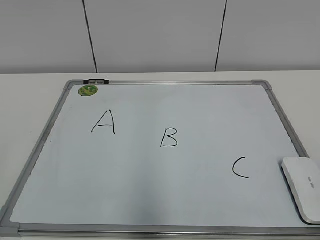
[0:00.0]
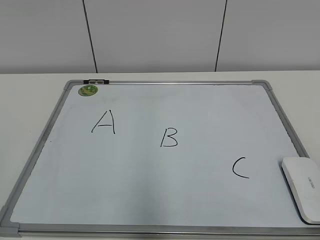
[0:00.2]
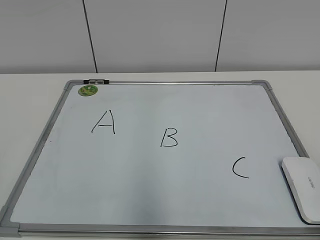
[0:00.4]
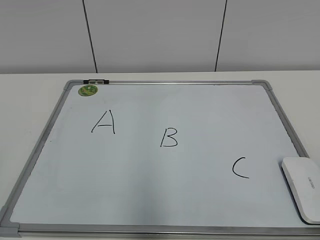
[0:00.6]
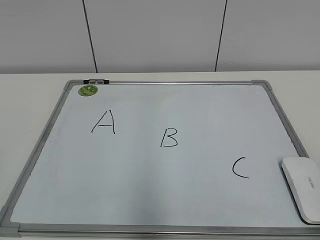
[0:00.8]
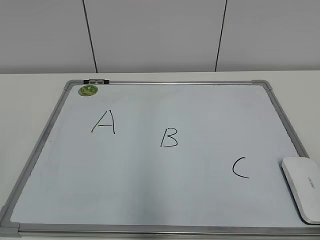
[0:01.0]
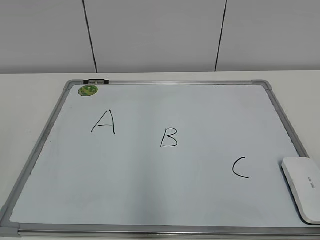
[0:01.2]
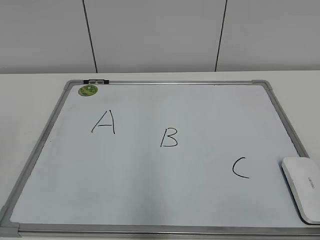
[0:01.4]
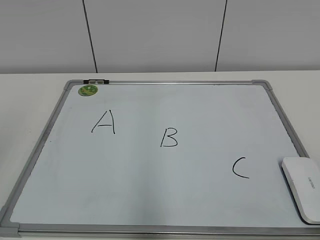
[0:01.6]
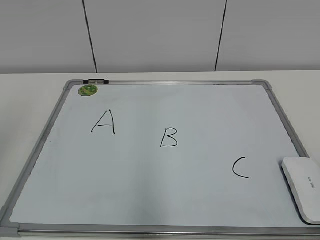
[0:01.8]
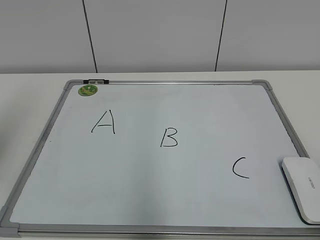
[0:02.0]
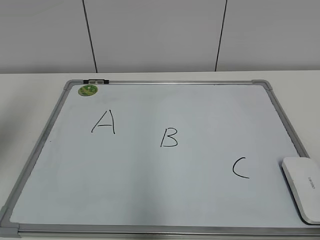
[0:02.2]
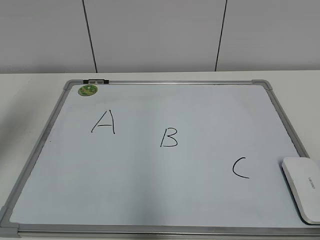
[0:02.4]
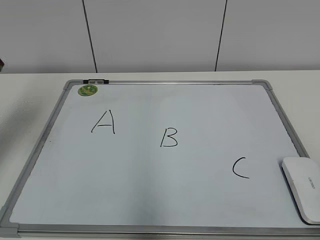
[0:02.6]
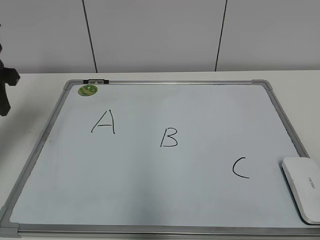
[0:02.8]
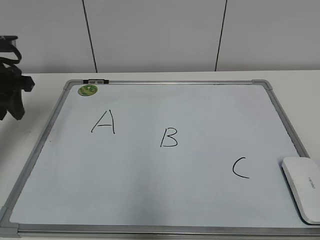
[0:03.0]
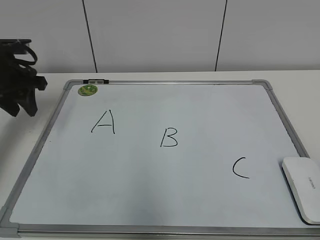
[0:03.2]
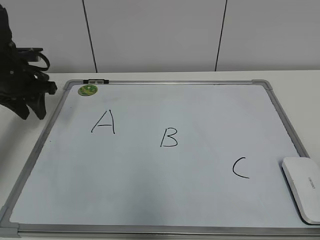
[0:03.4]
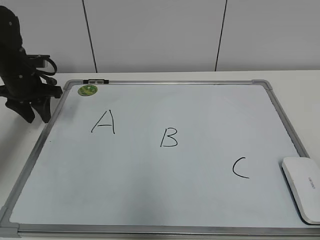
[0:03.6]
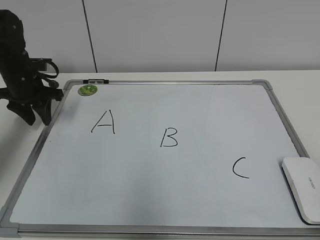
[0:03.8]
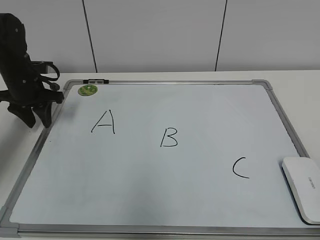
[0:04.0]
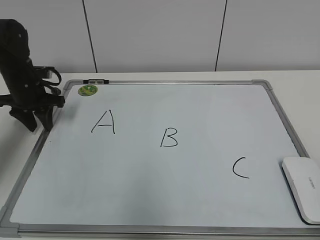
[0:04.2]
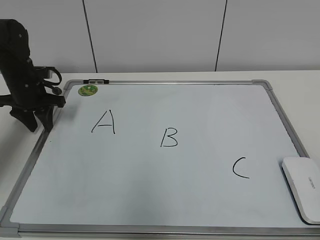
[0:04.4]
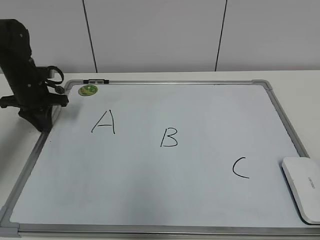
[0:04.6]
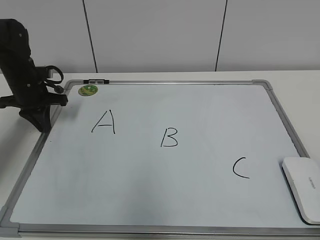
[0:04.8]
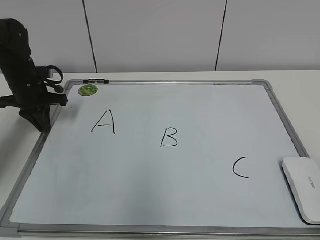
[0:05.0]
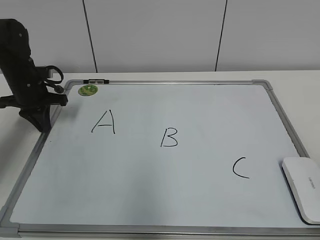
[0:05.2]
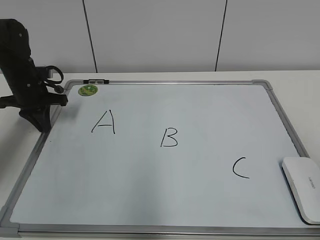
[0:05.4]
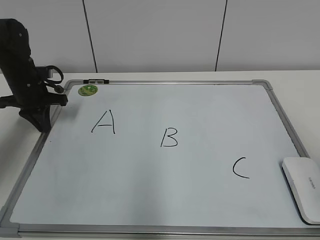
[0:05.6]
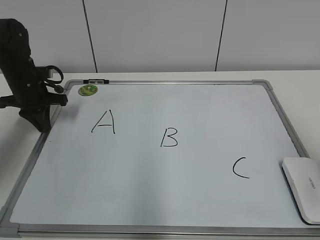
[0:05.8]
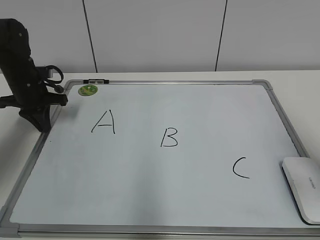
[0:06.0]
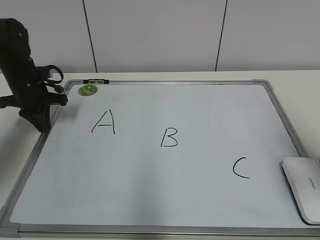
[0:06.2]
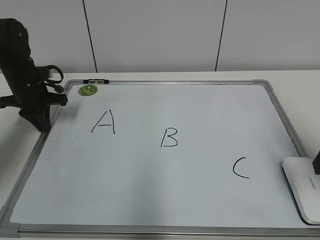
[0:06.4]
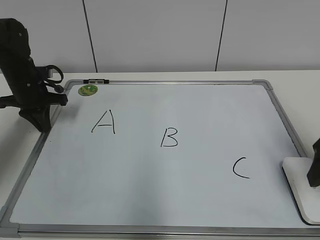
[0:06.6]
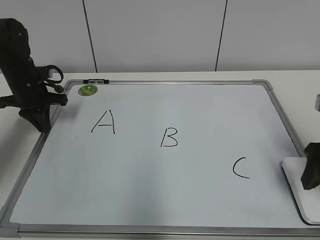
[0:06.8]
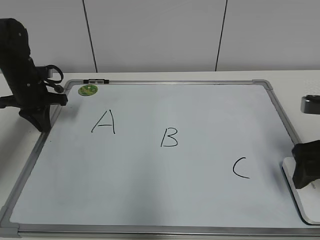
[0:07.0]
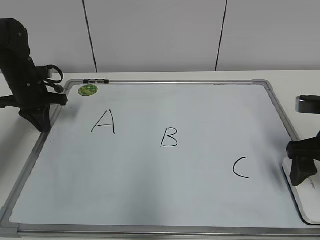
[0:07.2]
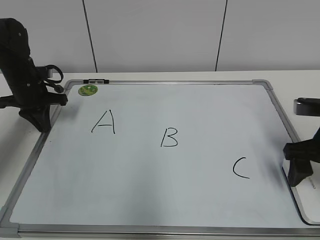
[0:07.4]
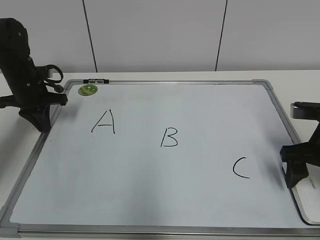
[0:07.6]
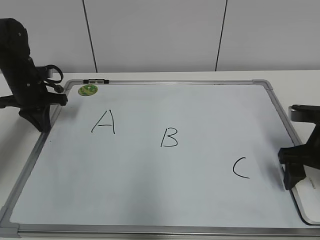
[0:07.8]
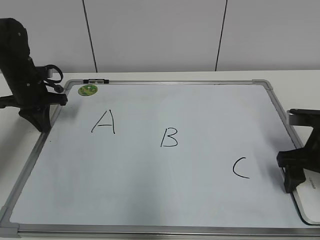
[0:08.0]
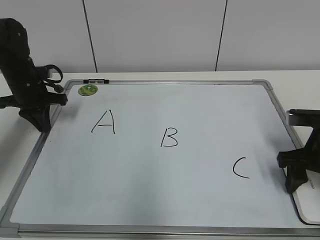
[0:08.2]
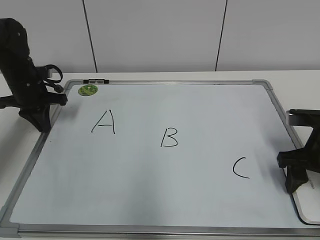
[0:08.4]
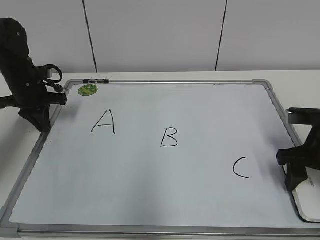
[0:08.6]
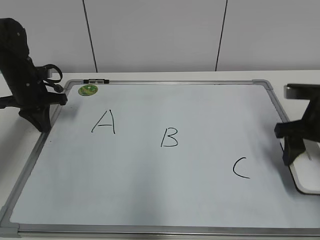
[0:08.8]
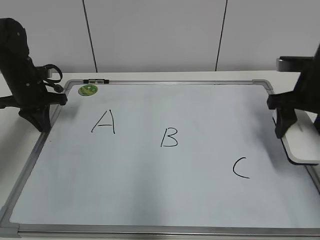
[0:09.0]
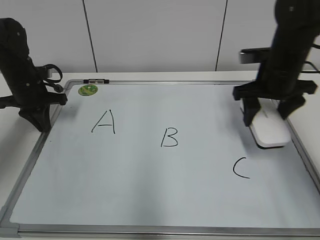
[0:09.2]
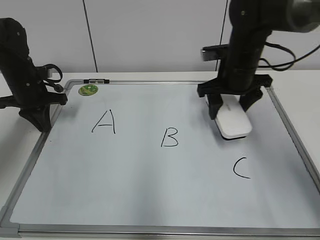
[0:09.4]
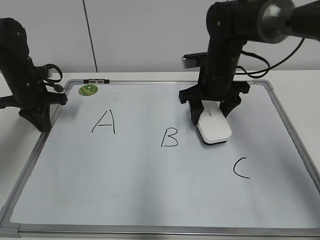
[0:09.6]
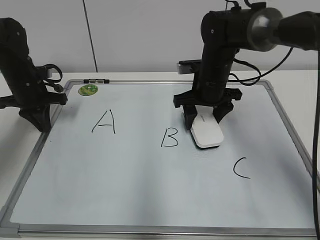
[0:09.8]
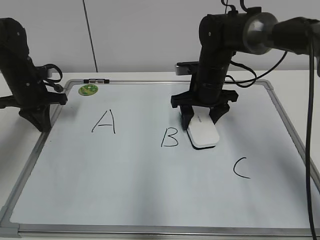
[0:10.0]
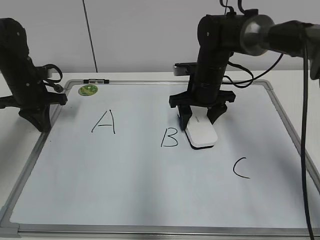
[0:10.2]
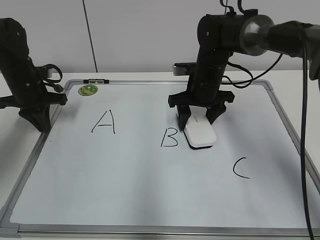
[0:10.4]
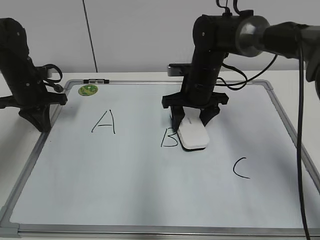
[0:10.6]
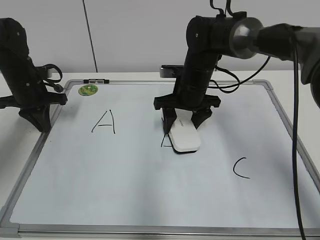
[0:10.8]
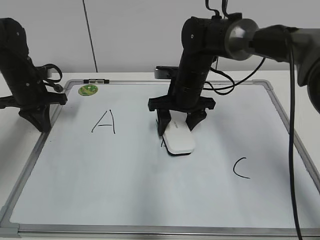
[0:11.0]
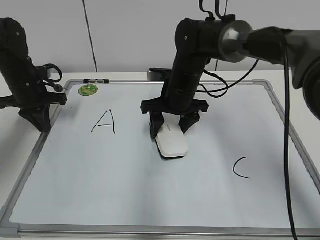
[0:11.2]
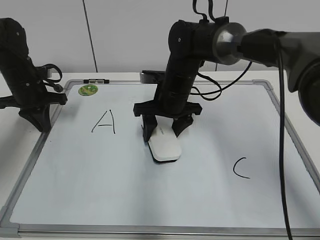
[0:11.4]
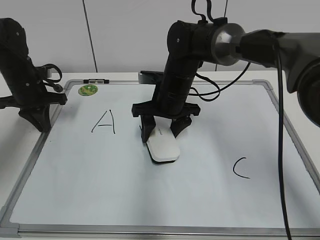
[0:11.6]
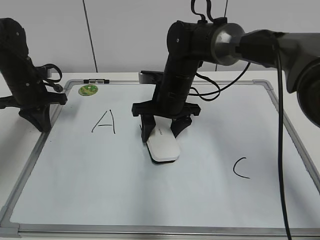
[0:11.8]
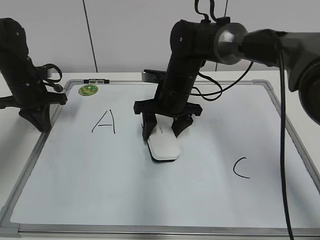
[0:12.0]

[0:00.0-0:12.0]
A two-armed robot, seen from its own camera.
Task of the whole recording: pick up the eraser on the blackboard and erase the letter "B".
Step, 0:00.0 to 0:04.6: Hold the drawing board steady with your left hand.
Step, 0:04.8 to 0:08.4: Grab the eraser with your right hand.
0:01.6 to 0:03.0: The left gripper moves forward, approximately 25 cm.
0:03.0 to 0:04.4: The left gripper shifts about 15 cm downward and forward.
0:04.4 to 0:06.0: The right gripper goes roughly 20 cm forward; the left gripper closes its fingers.
0:06.0 to 0:07.6: The right gripper is displaced forward and downward by roughly 15 cm, and opens.
0:07.6 to 0:09.0: The right gripper moves forward and upward, about 10 cm, and closes.
0:09.0 to 0:10.4: The right gripper moves to the left, forward and downward, roughly 20 cm.
0:10.4 to 0:12.0: The right gripper heads to the left, covering some 5 cm.

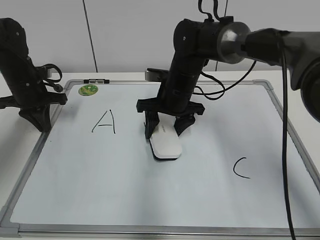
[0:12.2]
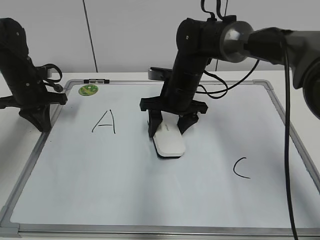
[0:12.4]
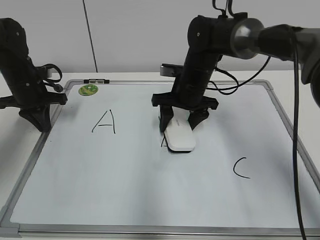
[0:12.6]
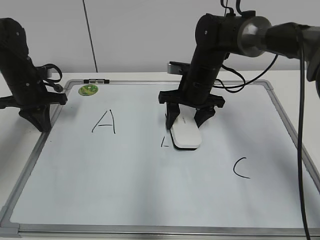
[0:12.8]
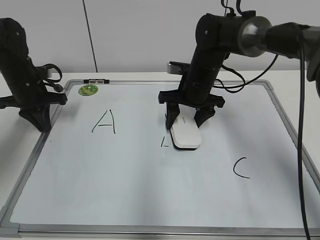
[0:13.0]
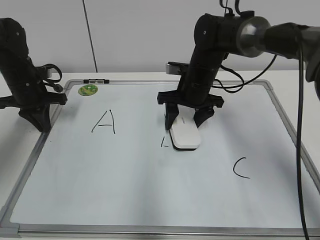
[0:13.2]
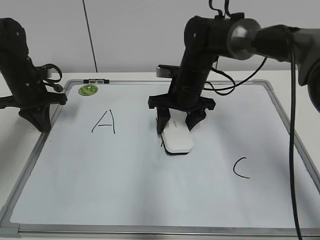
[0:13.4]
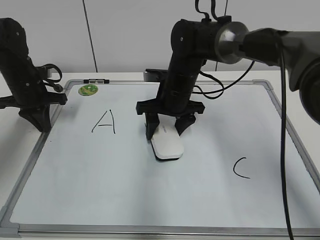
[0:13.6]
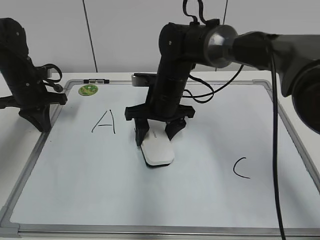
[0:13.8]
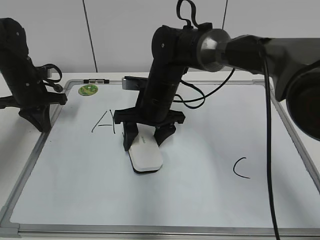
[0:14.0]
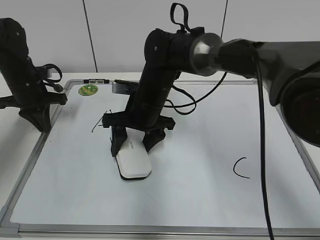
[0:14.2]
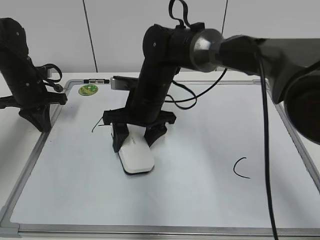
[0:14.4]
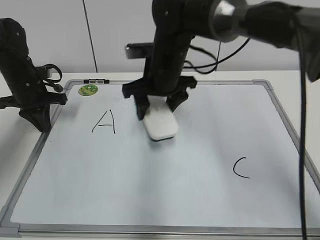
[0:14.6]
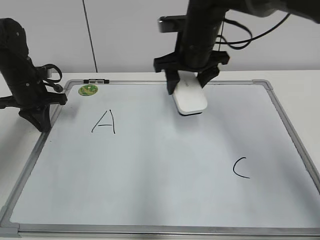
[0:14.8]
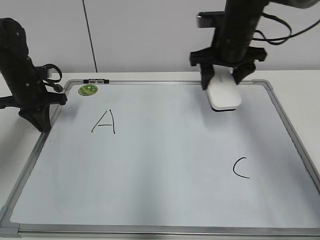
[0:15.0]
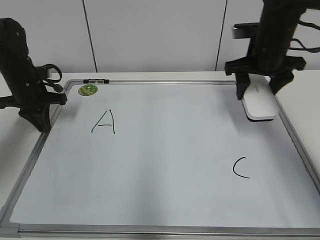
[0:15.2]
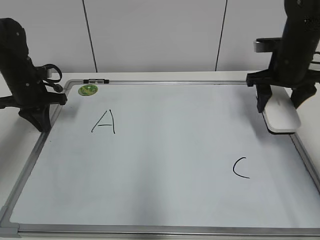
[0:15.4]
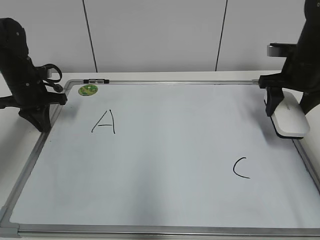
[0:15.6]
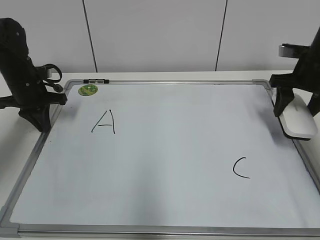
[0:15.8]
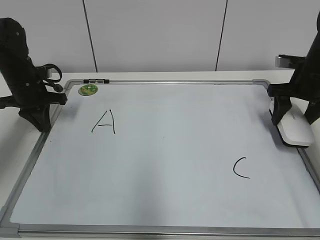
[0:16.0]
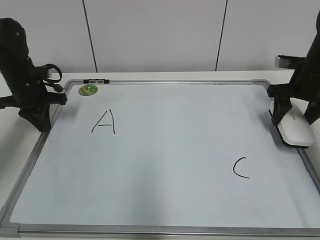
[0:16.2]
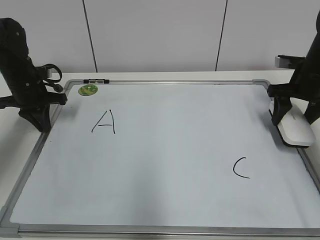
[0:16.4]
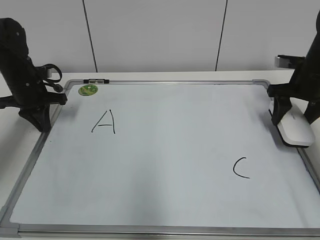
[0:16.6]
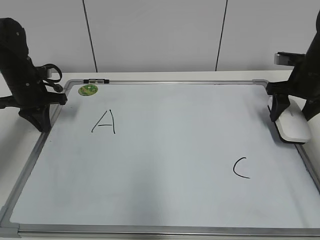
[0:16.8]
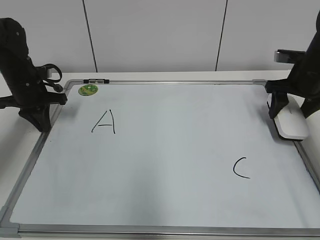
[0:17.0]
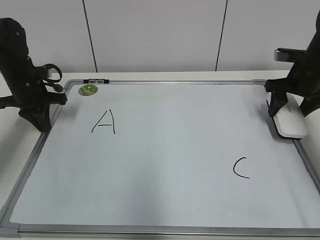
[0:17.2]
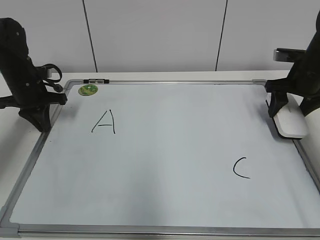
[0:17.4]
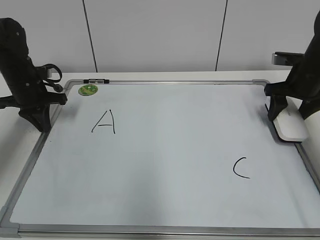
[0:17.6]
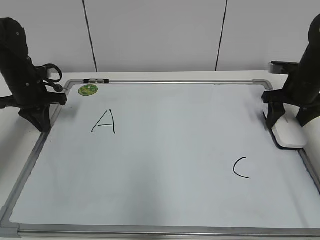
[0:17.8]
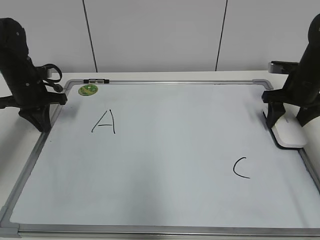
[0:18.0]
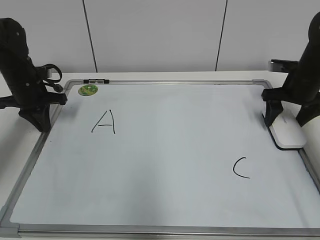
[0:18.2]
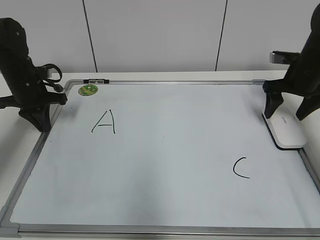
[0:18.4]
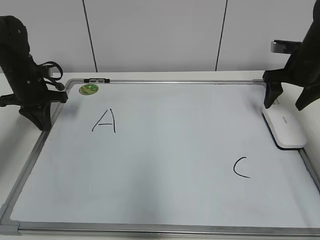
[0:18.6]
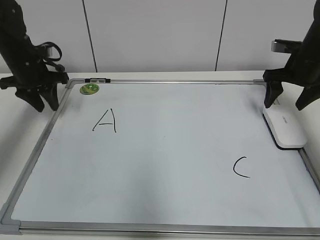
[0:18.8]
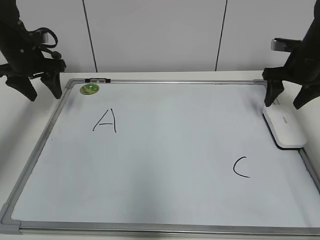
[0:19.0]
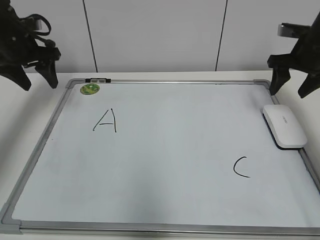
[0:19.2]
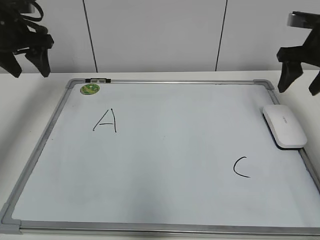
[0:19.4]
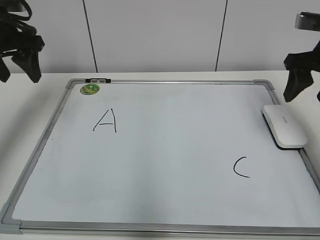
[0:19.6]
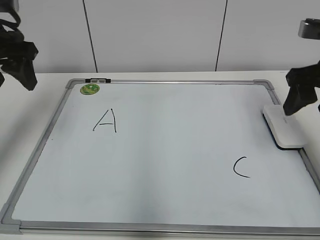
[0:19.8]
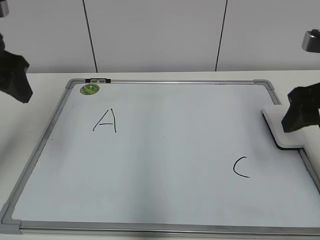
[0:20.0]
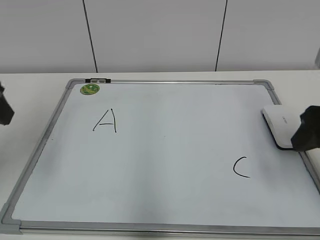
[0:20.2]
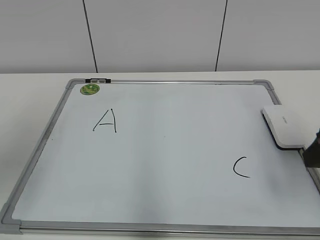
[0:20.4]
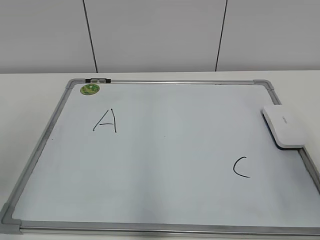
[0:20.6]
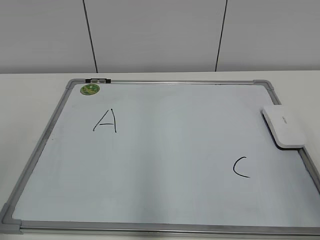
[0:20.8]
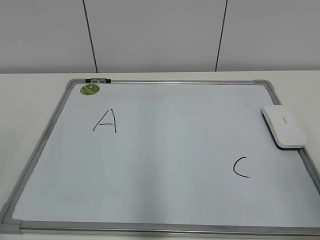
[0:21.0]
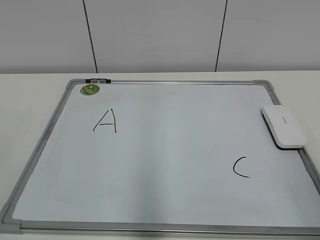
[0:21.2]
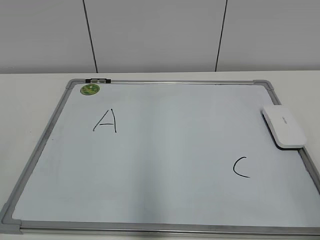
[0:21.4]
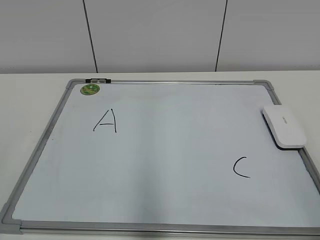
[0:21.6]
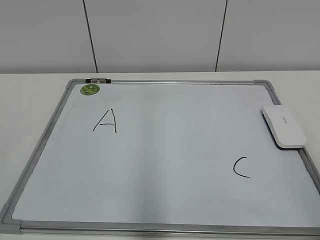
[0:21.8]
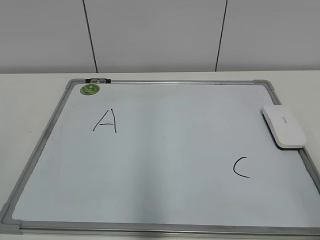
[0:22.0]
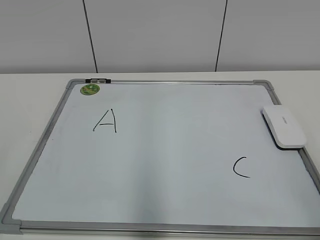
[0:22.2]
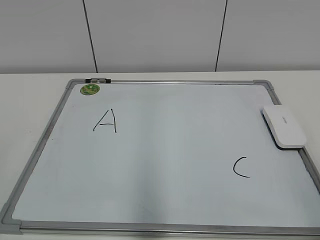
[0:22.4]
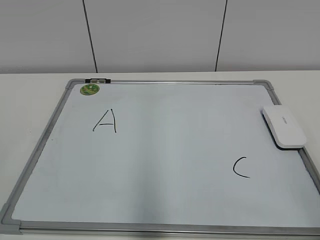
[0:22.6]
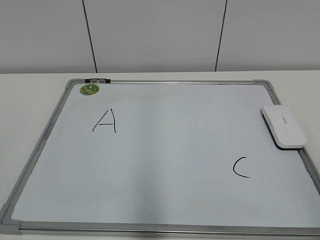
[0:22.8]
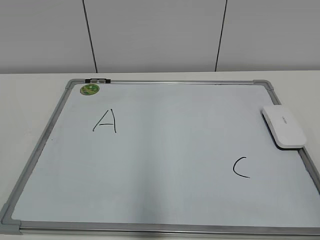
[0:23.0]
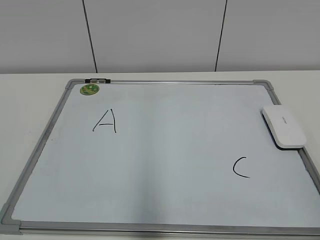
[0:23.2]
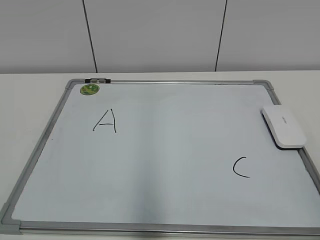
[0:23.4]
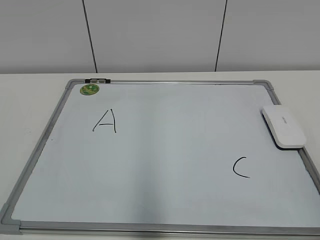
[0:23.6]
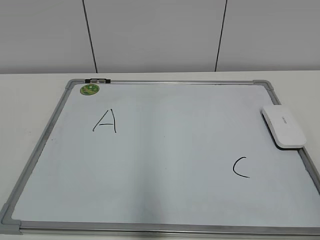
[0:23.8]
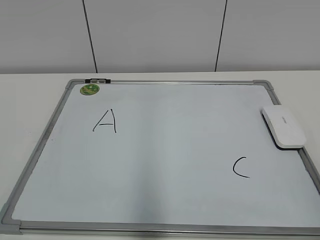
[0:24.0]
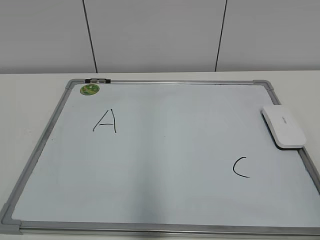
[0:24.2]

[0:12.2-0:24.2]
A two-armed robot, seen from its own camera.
Task of the whole recording: pick up the eraser on the blackboard and erase the letter "B".
Step, 0:12.2 to 0:14.2: Erase the letter B with your right hand.
Step, 0:14.4 to 0:18.0: Put down the eraser with your right hand.
0:12.2 to 0:13.8: The grippers make only small movements.
0:13.8 to 0:15.2: The right gripper is displaced to the right and upward by roughly 20 cm.
0:15.2 to 0:16.6: The right gripper heads to the right and downward, covering about 10 cm.
0:16.6 to 0:18.2: The right gripper opens its fingers.
0:18.2 to 0:19.8: The right gripper travels backward and upward by approximately 15 cm, and closes; the left gripper shifts roughly 20 cm upward and backward, and opens.
0:19.8 to 0:21.2: The two grippers go some 30 cm backward.
